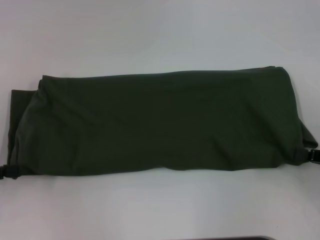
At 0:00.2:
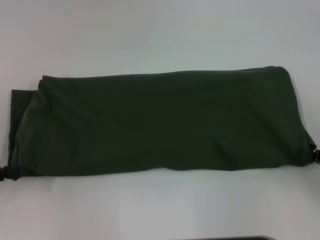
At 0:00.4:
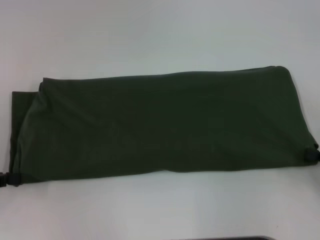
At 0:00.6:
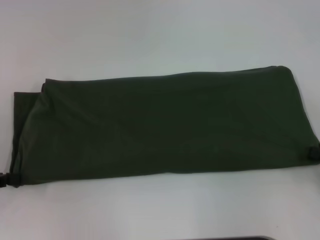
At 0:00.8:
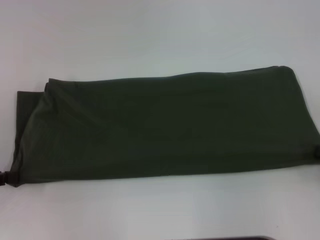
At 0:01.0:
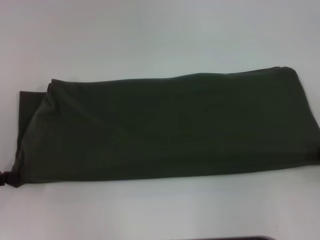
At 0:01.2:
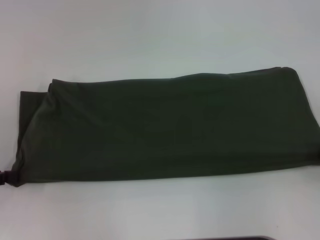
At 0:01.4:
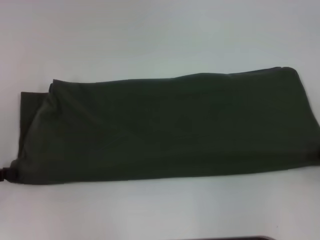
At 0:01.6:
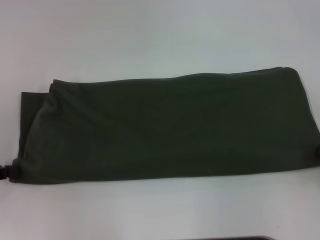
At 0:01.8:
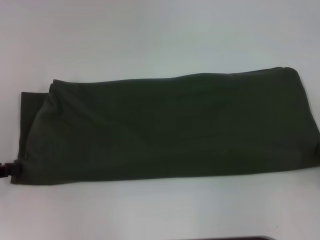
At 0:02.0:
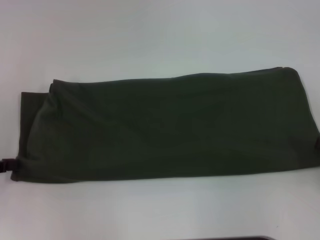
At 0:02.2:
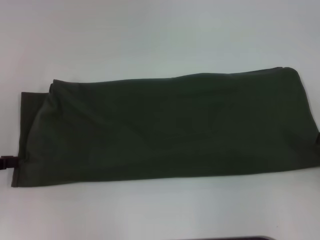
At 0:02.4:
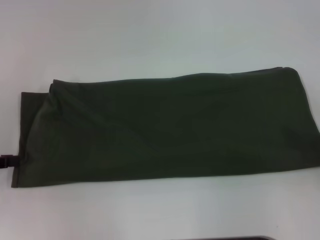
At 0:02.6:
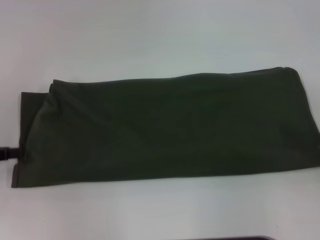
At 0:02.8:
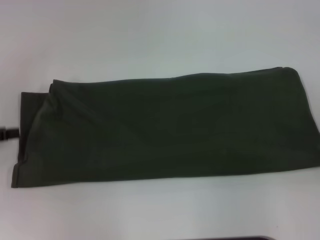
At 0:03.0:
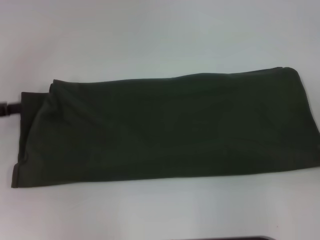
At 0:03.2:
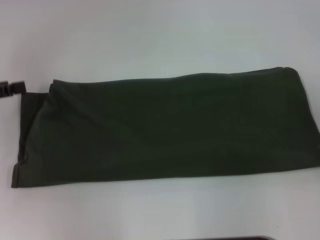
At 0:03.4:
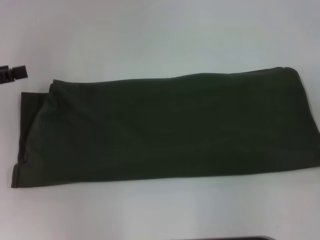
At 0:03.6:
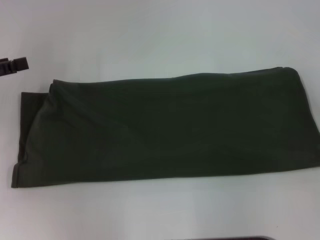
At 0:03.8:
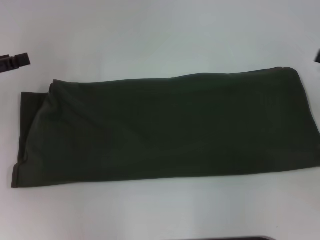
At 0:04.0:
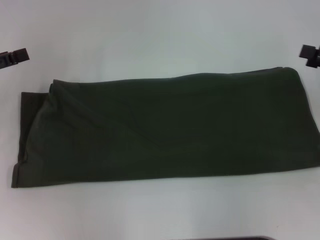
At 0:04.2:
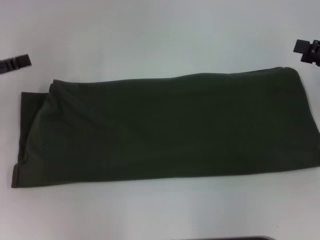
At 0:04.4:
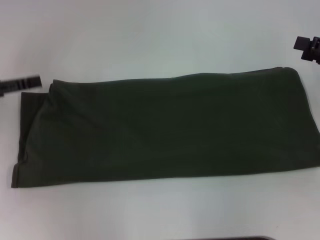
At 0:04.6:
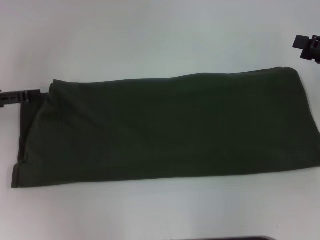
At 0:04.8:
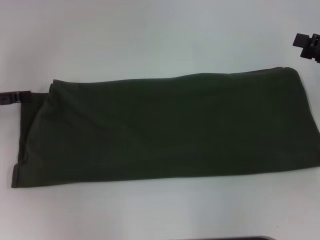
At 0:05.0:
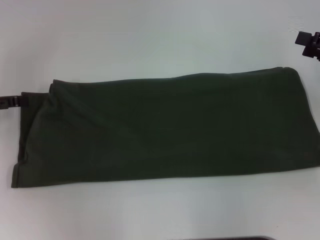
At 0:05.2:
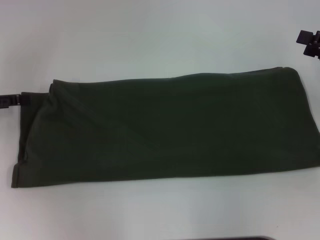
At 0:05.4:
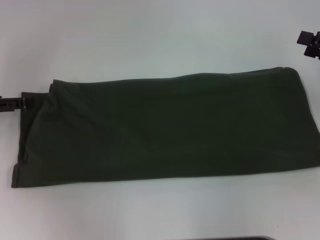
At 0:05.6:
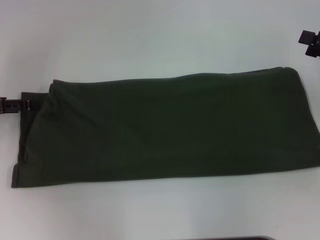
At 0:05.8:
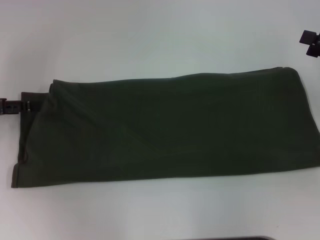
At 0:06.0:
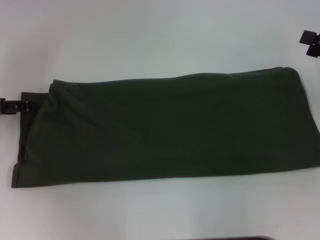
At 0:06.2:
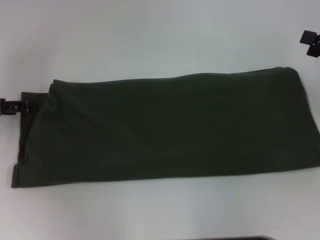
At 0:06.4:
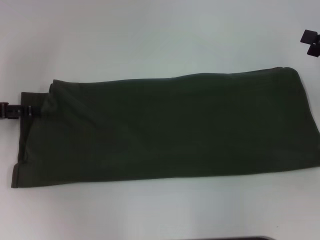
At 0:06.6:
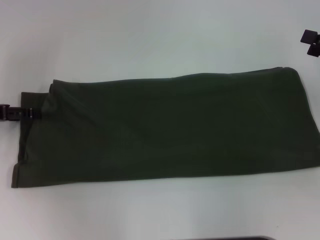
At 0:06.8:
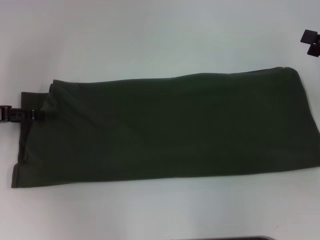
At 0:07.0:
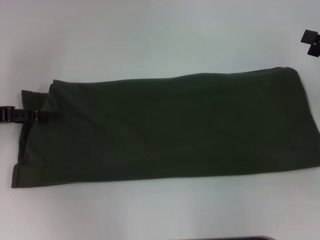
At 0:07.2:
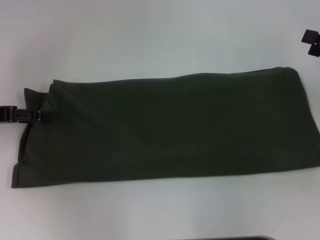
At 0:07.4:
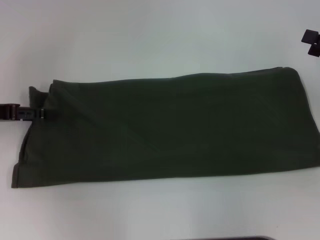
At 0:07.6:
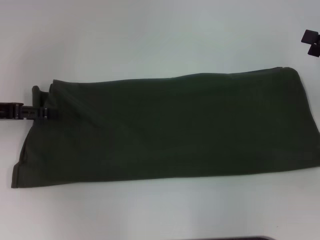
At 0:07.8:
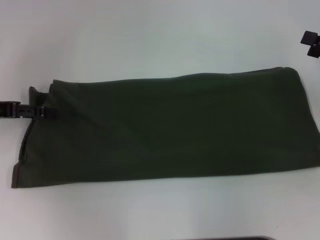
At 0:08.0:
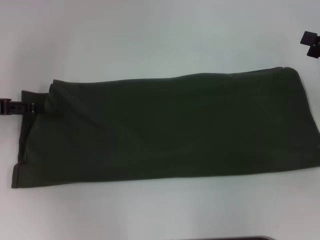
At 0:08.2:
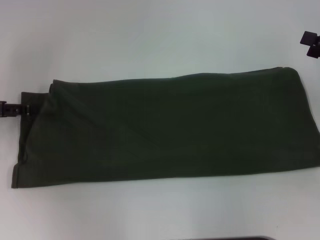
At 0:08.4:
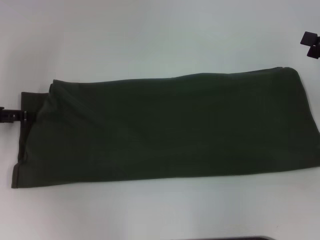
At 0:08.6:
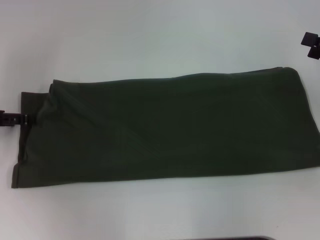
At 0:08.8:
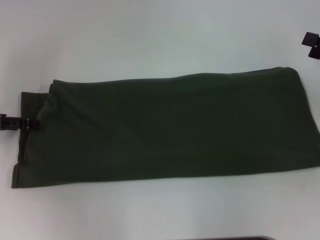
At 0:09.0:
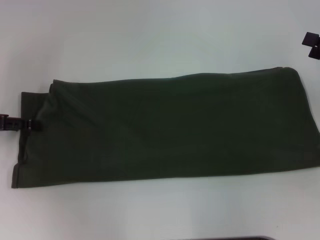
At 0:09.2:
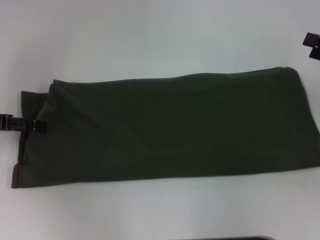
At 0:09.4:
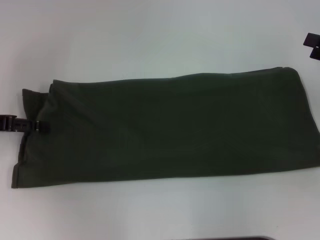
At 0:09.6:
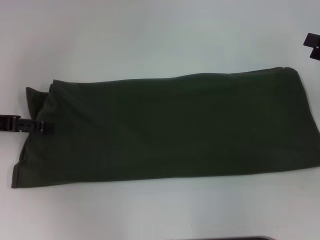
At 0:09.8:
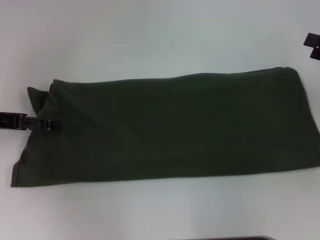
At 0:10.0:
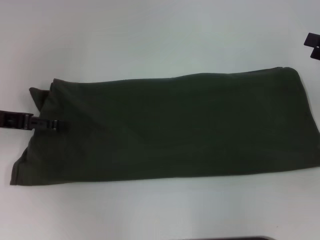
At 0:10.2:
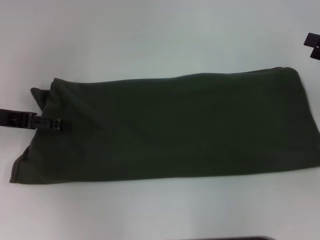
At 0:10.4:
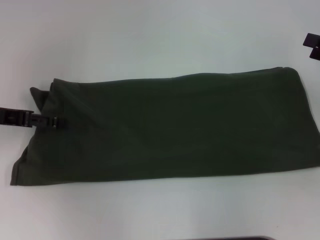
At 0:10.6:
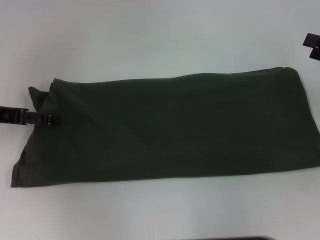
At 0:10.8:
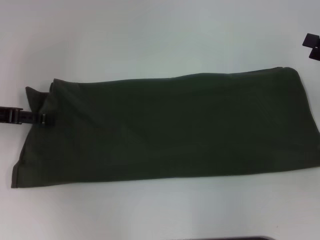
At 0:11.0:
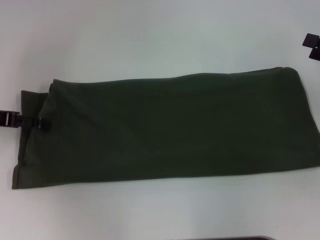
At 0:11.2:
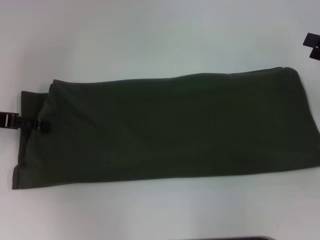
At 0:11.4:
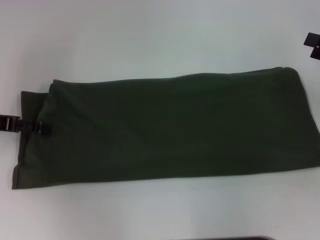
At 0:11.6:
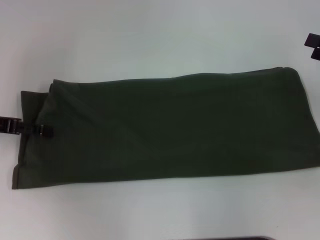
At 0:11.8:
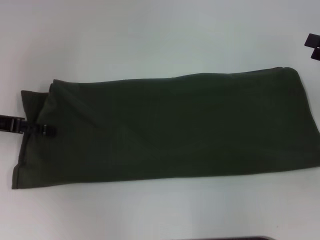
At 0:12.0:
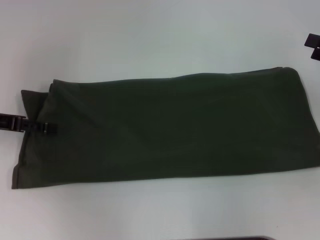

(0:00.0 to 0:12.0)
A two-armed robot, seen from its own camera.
Step, 0:00.0 - 0:02.4: Pull the clothes with your left hand.
Step, 0:00.0 - 0:02.4: Pull the clothes with your right hand.
0:00.0 - 0:01.6: The grippers move only a little.
0:01.6 - 0:03.0: The left gripper shifts by about 5 cm, and opens its fingers.
0:03.0 - 0:04.4: The right gripper is displaced forward by about 10 cm. The left gripper opens its fingers.
0:04.4 - 0:07.6: The grippers stay close to where they were, moving slightly.
0:07.6 - 0:12.0: The grippers move only a little.

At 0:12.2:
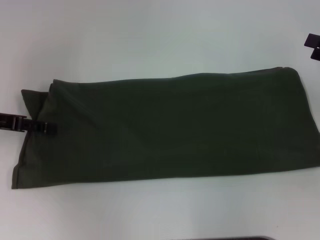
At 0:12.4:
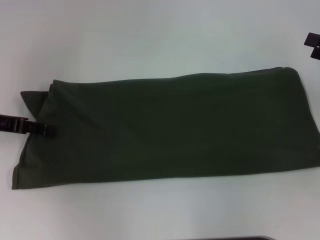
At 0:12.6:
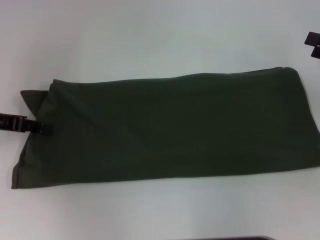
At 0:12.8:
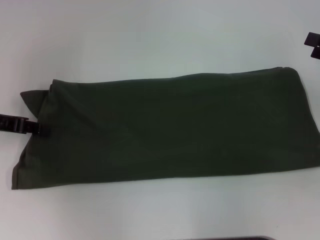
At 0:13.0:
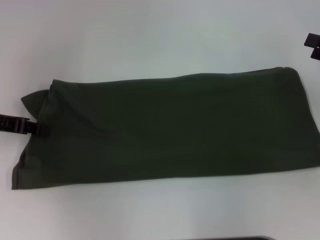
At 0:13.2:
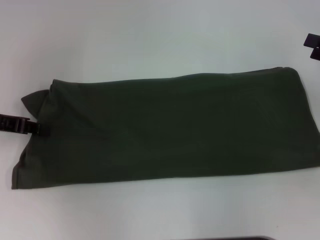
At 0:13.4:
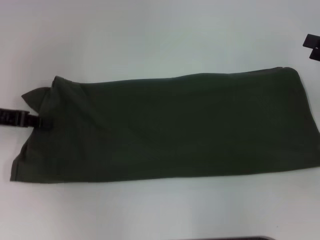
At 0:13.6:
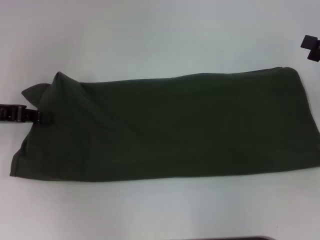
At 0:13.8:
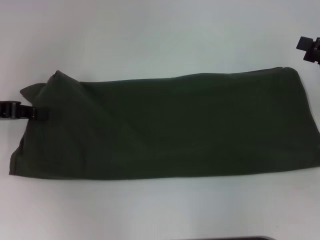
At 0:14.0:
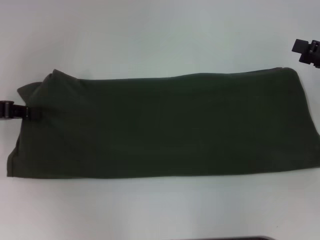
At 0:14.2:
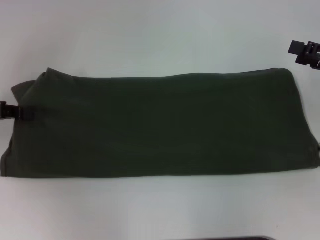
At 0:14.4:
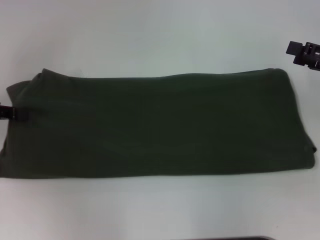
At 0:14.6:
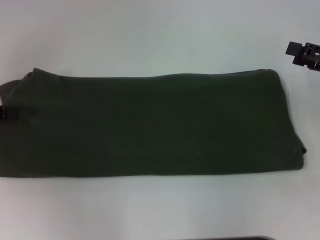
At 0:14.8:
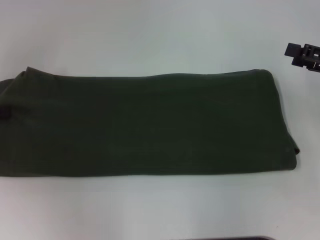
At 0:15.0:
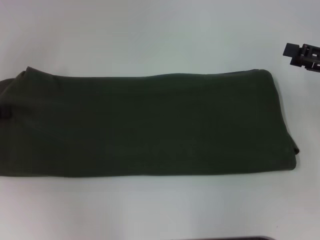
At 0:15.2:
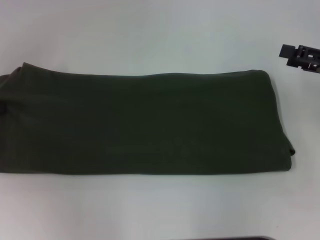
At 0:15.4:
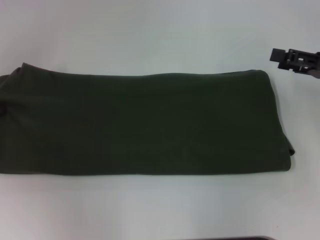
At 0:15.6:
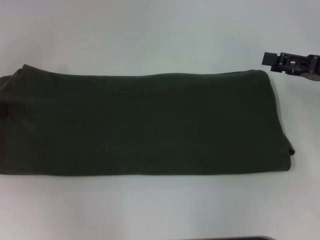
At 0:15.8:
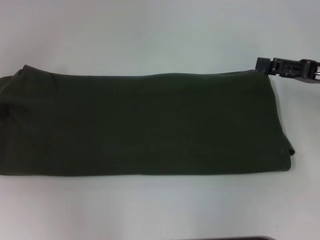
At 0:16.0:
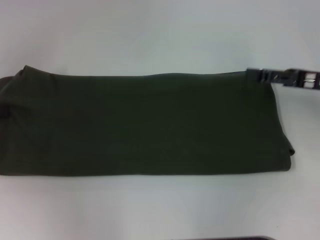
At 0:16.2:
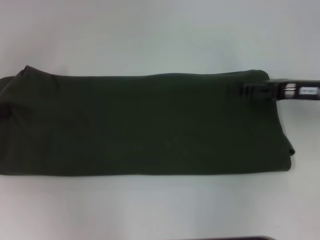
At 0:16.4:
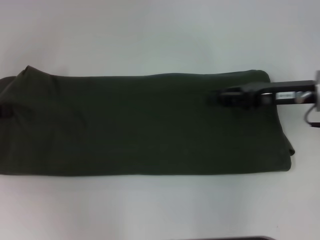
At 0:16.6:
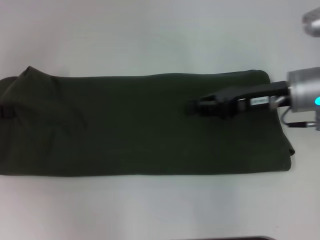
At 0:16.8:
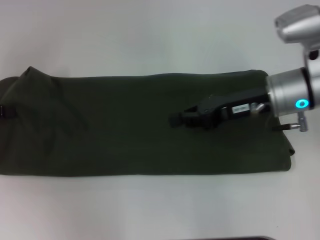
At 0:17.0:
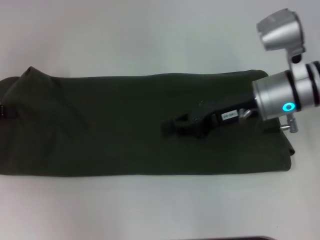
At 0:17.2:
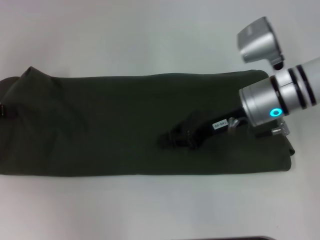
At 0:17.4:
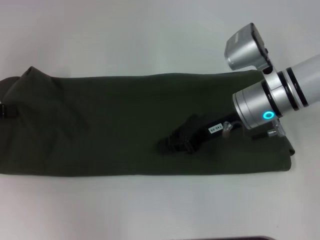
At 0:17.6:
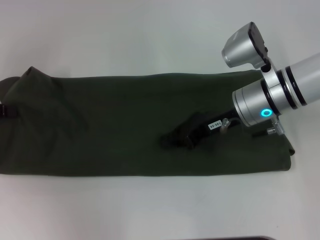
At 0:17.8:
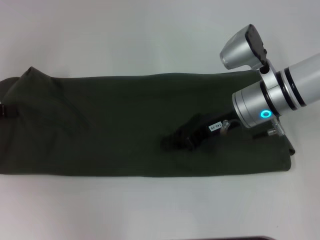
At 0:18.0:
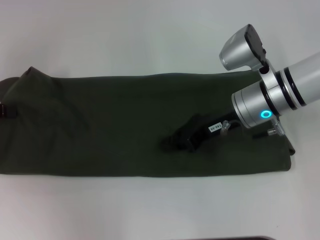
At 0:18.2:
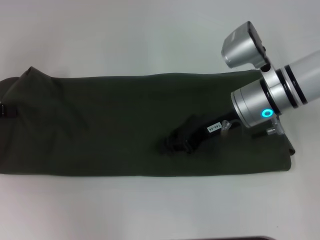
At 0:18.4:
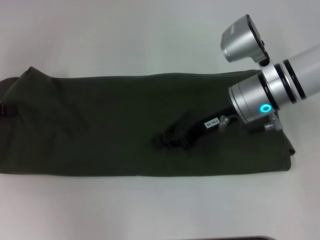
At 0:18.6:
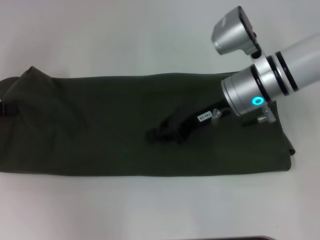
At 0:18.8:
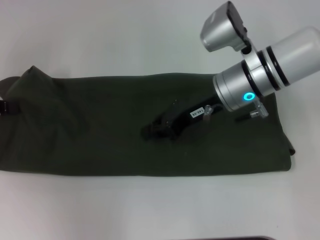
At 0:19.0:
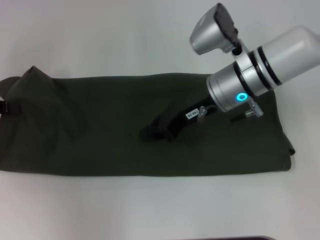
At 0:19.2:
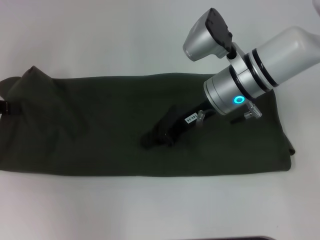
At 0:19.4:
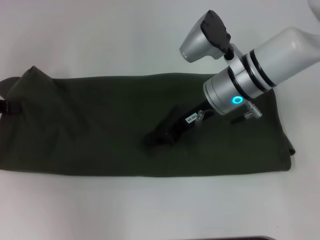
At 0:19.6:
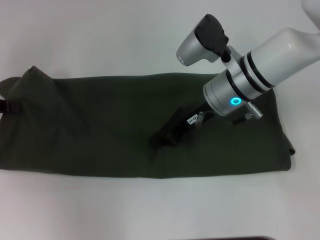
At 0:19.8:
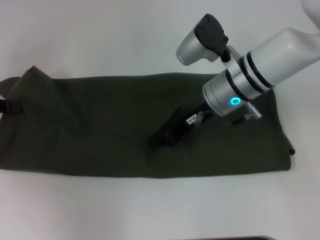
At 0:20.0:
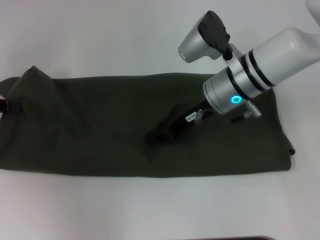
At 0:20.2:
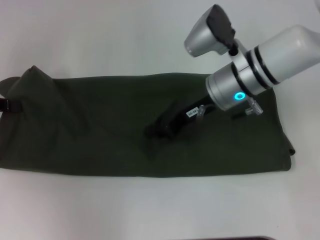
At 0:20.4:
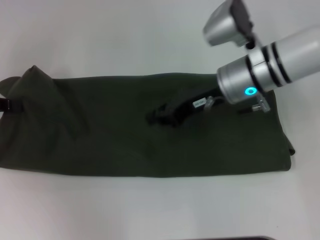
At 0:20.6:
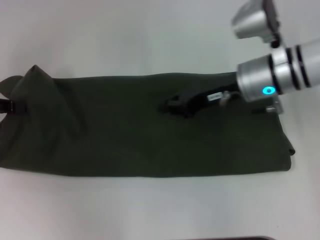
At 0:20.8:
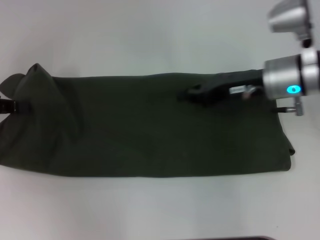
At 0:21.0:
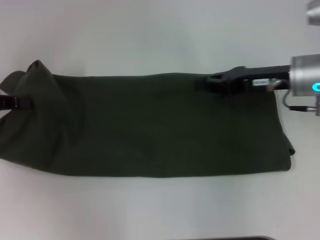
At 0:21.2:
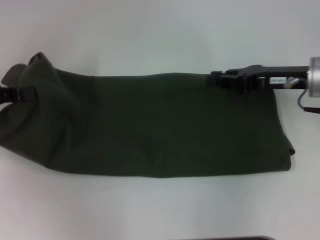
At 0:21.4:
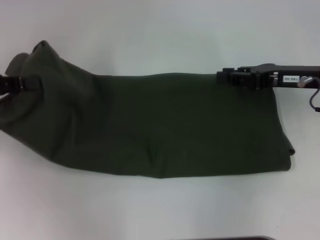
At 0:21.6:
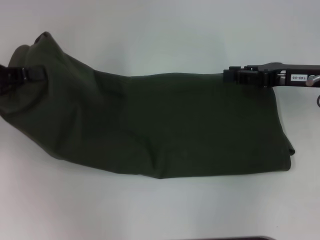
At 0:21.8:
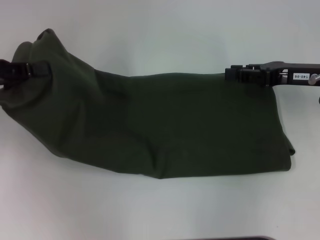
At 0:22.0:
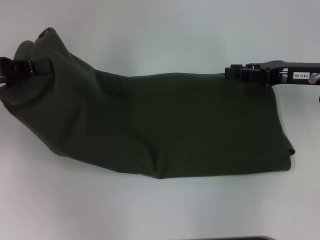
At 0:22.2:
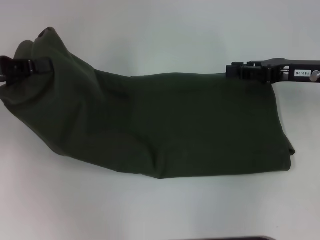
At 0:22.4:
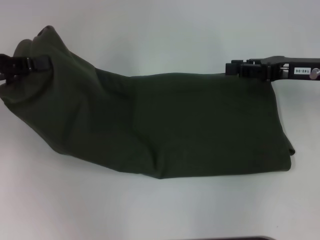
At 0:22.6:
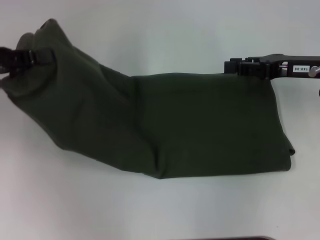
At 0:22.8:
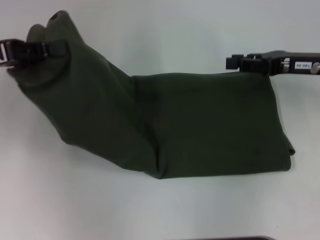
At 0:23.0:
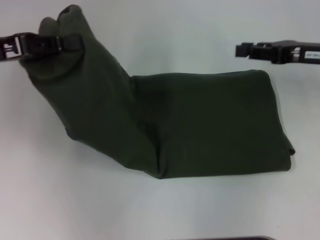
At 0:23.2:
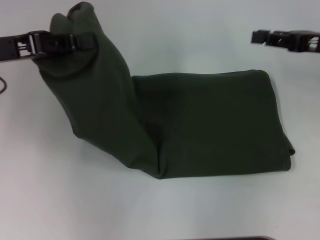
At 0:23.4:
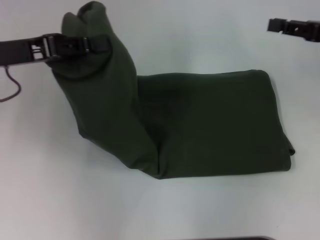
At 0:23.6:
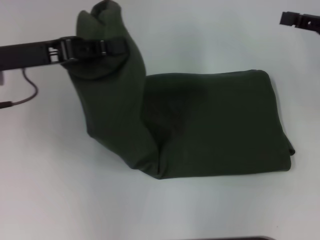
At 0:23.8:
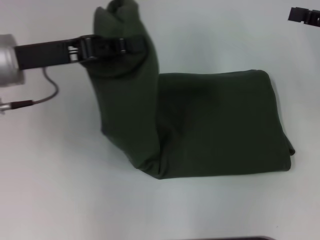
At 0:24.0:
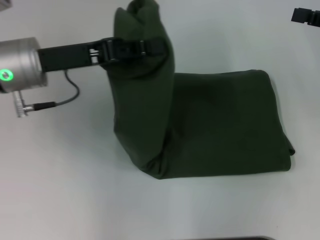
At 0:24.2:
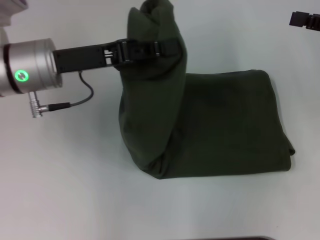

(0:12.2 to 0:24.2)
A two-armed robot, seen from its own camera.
0:12.2 - 0:13.8: The left gripper closes.
0:13.8 - 0:15.2: The left gripper moves to the left, approximately 5 cm.
0:15.2 - 0:16.6: The right gripper travels to the left by about 15 cm, and closes up.
0:16.6 - 0:18.2: The right gripper is displaced to the left by some 5 cm.
0:18.2 - 0:19.8: The grippers move only a little.
0:19.8 - 0:21.2: The right gripper is displaced to the right by approximately 15 cm.
0:21.2 - 0:22.6: The grippers move only a little.
0:22.6 - 0:24.2: The left gripper heads to the right, covering some 15 cm; the right gripper heads to the right, covering approximately 10 cm.
